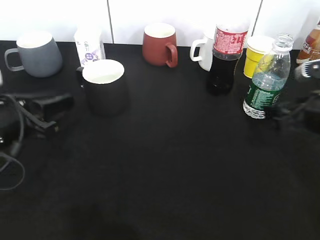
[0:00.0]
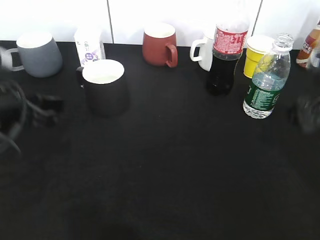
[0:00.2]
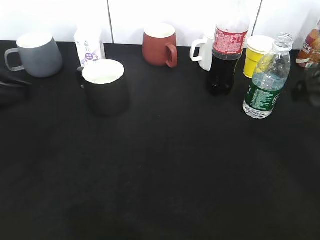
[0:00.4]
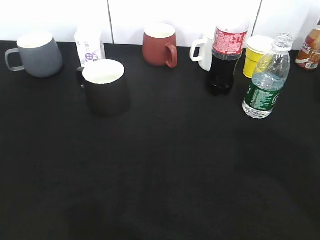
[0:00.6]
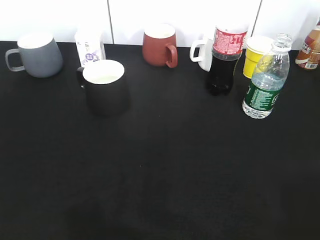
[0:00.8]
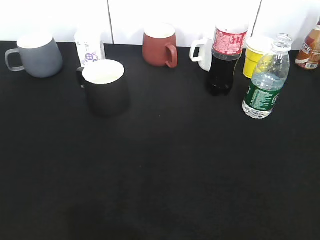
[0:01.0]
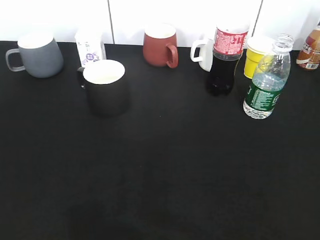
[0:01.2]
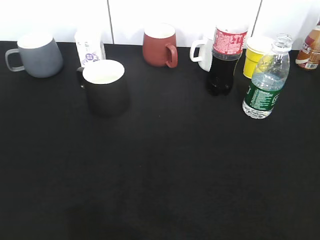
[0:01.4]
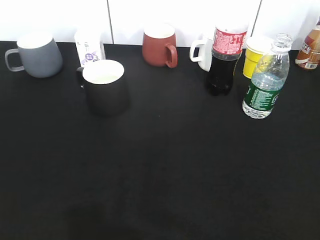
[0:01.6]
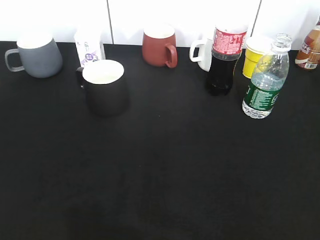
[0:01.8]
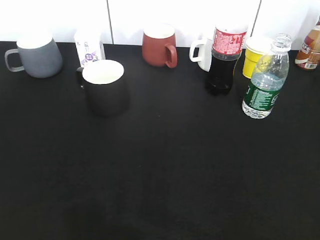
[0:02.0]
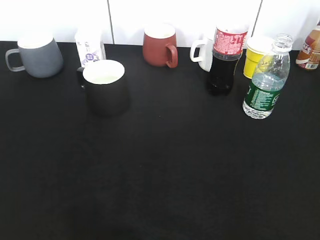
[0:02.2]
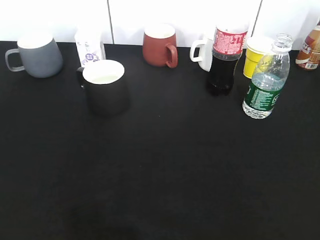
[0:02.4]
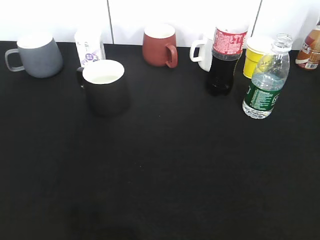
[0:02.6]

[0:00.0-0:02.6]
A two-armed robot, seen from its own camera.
0:00.0 to 0:01.2: The two grippers go about 25 cm backward and upward.
